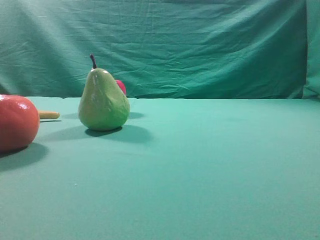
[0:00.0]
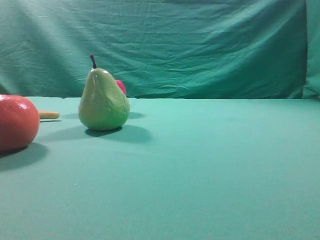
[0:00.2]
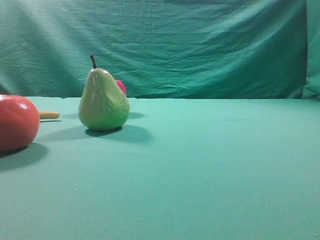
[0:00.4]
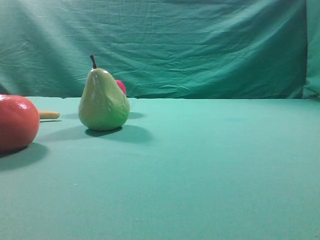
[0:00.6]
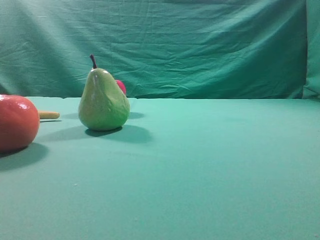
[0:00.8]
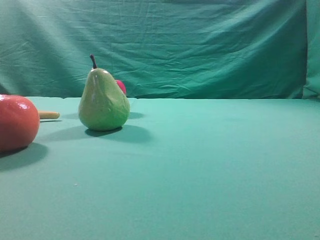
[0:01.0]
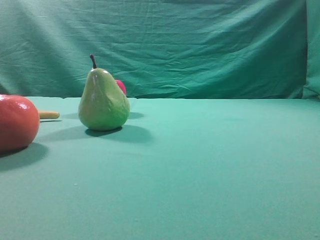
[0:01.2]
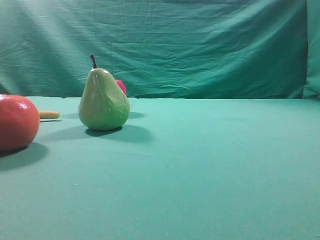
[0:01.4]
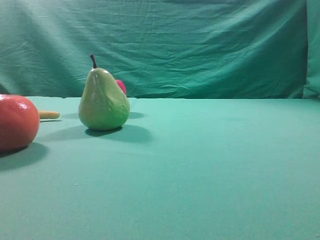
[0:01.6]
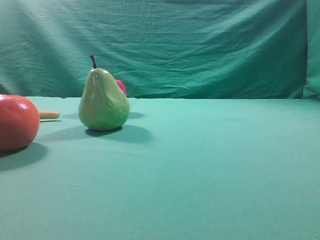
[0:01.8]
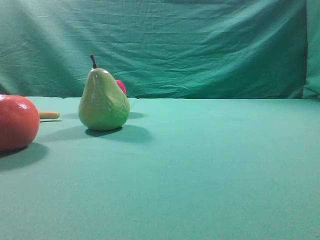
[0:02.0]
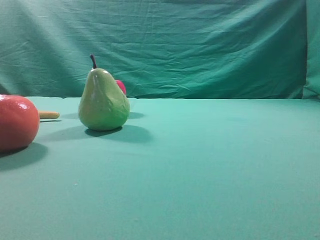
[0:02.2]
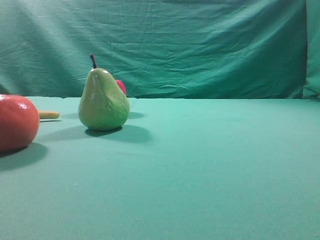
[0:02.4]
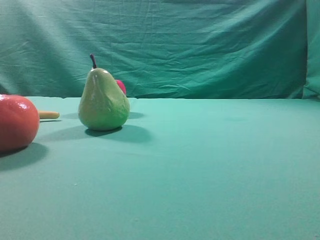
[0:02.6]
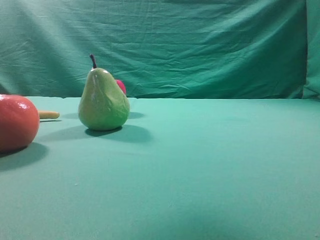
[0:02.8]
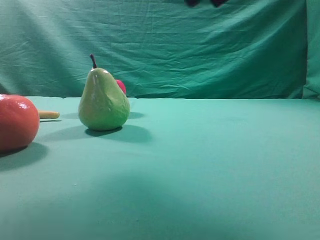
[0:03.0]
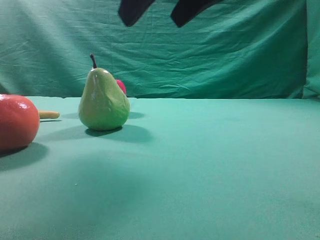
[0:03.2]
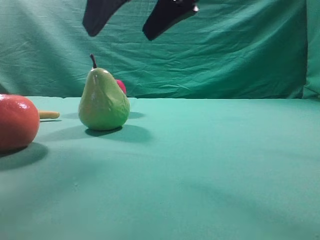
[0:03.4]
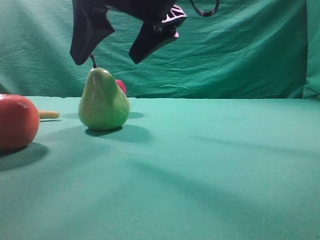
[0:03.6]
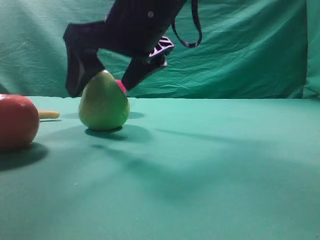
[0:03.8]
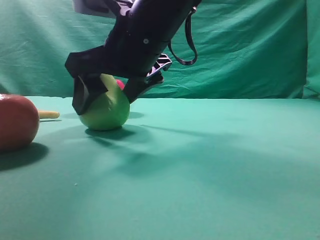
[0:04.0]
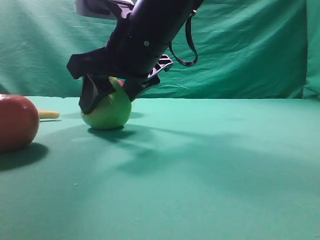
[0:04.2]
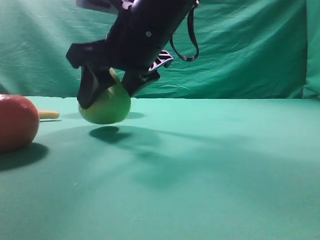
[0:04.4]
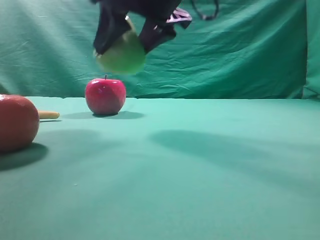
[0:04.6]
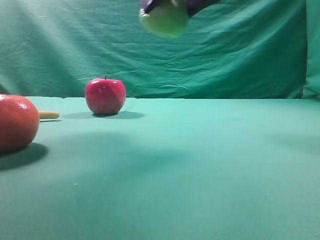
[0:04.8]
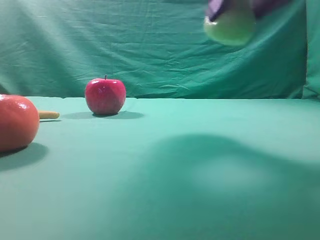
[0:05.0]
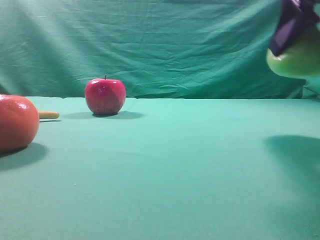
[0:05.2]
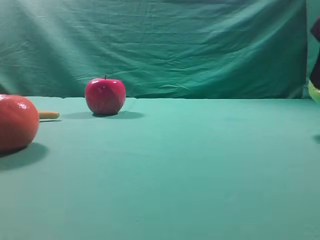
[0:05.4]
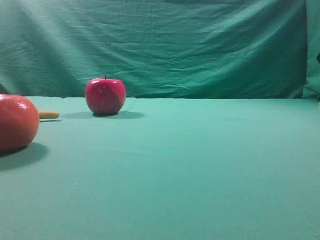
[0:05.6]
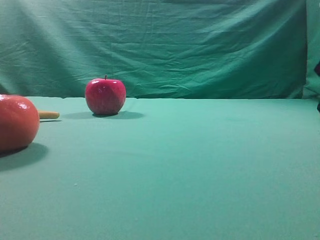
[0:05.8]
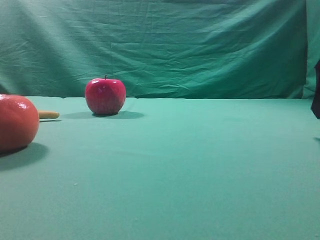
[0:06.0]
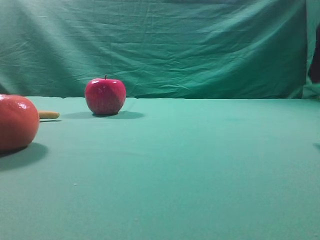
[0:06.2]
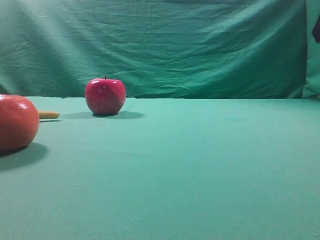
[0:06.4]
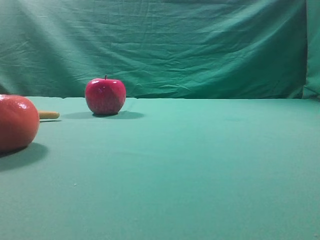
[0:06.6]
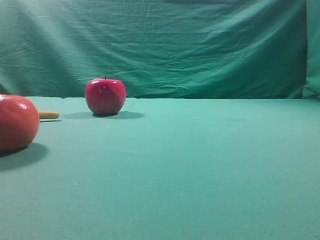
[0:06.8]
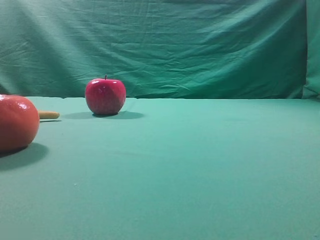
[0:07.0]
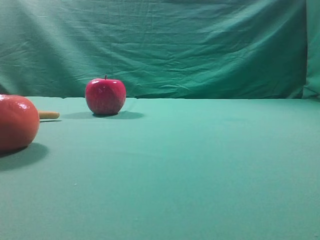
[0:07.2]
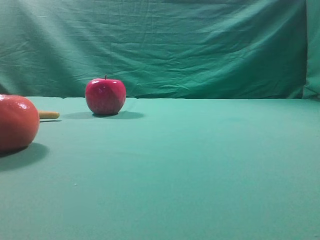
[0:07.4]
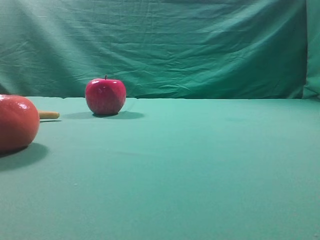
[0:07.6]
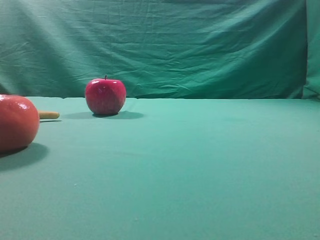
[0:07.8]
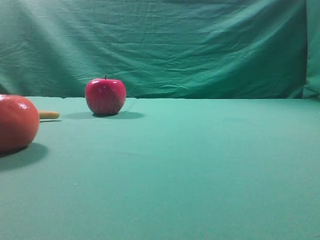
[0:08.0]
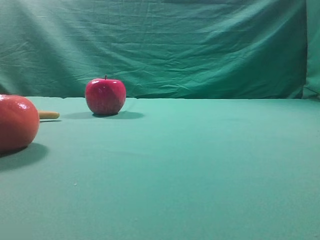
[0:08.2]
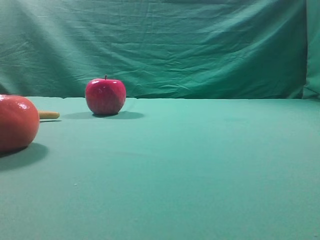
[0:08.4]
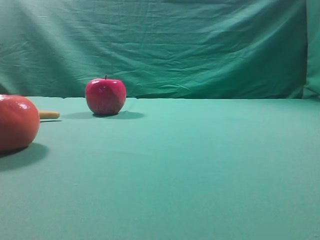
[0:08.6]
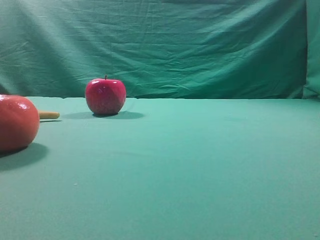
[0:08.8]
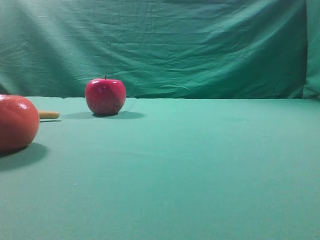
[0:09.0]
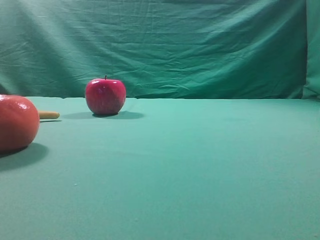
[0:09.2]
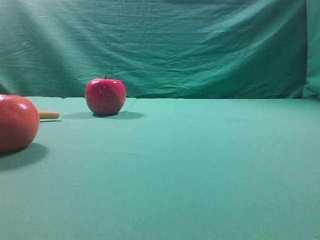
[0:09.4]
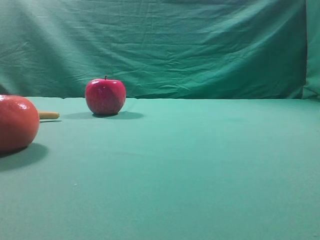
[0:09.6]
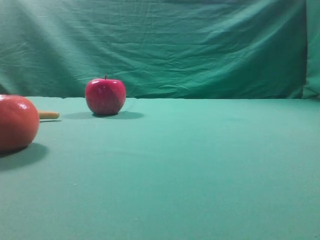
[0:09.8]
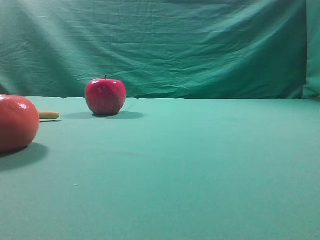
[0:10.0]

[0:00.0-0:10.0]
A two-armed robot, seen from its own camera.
Task of the whole recording: Grasp the pear and place it on one side of the table.
Step, 0:00.0 to 0:04.4: Grasp the high-fiber fruit.
Step, 0:04.6 to 0:05.6: Place it on the right side of the table.

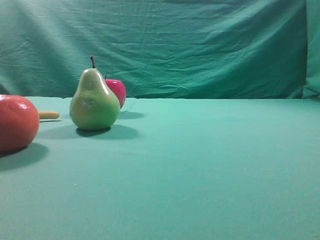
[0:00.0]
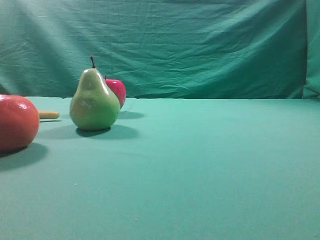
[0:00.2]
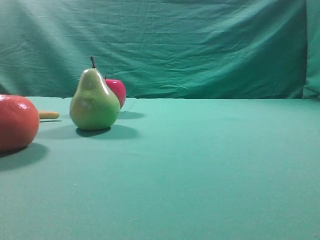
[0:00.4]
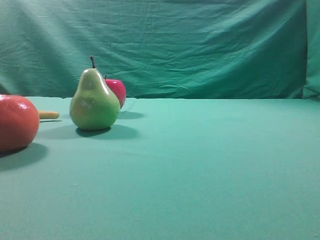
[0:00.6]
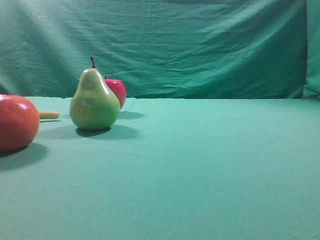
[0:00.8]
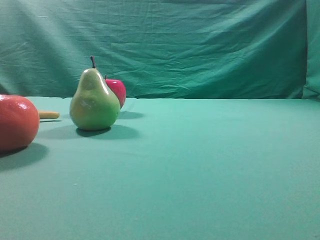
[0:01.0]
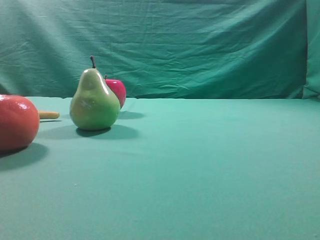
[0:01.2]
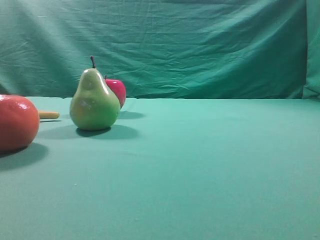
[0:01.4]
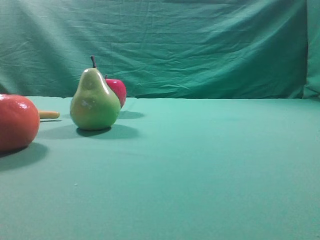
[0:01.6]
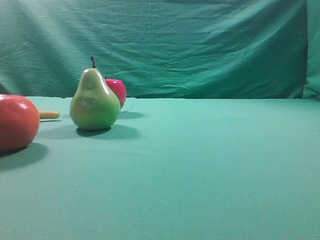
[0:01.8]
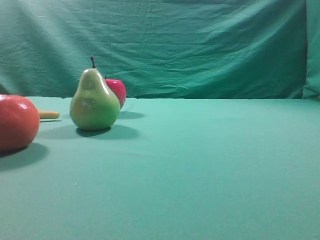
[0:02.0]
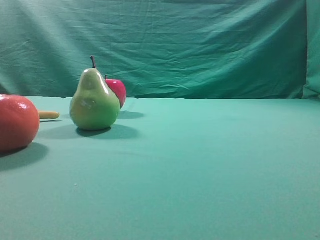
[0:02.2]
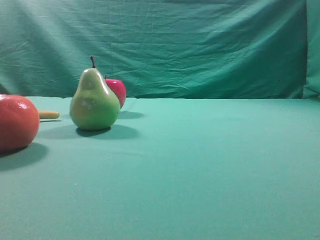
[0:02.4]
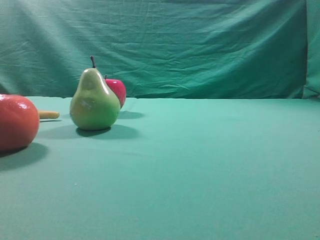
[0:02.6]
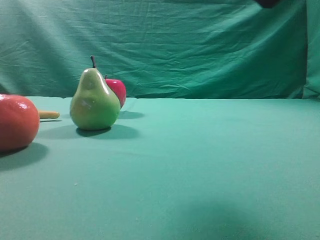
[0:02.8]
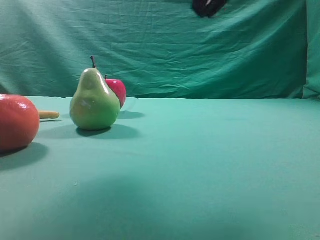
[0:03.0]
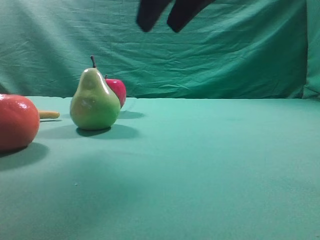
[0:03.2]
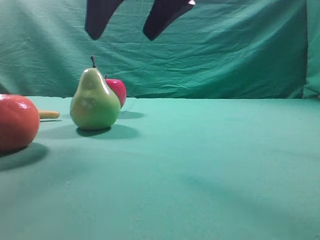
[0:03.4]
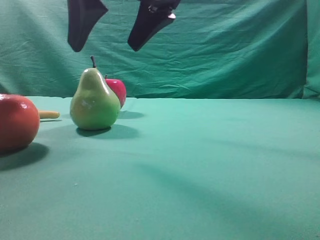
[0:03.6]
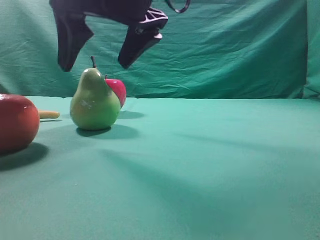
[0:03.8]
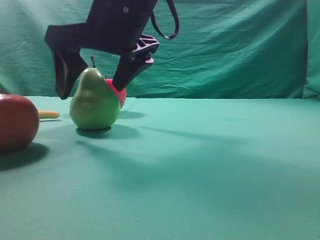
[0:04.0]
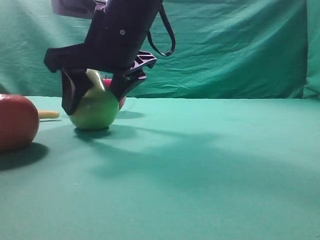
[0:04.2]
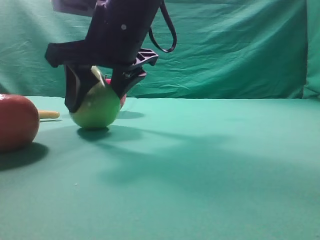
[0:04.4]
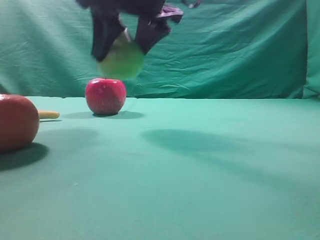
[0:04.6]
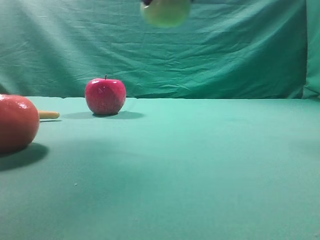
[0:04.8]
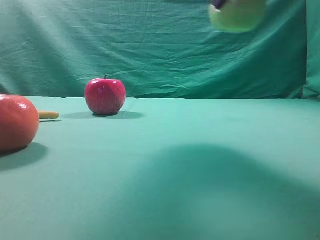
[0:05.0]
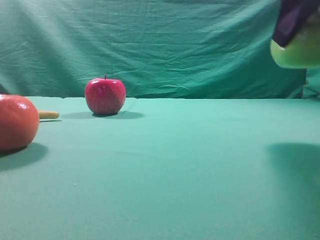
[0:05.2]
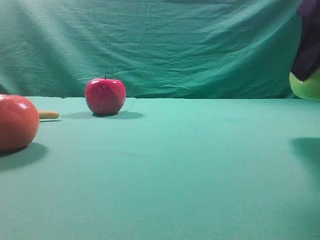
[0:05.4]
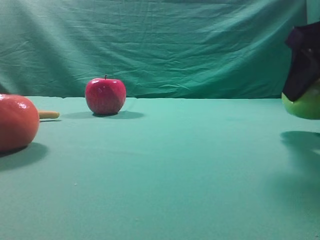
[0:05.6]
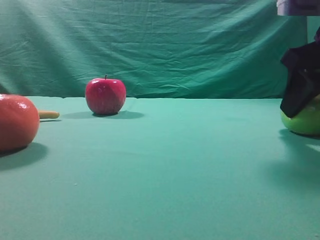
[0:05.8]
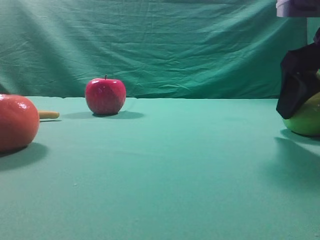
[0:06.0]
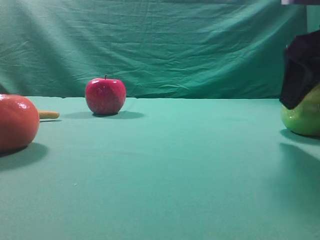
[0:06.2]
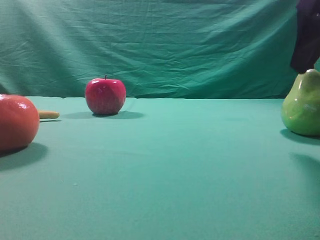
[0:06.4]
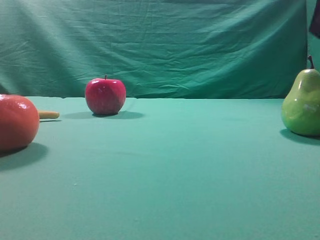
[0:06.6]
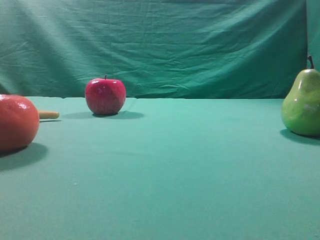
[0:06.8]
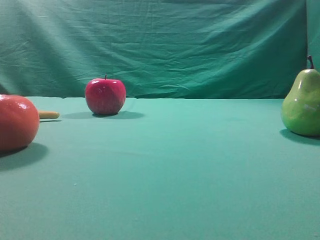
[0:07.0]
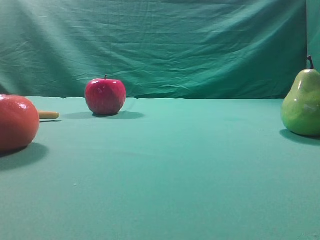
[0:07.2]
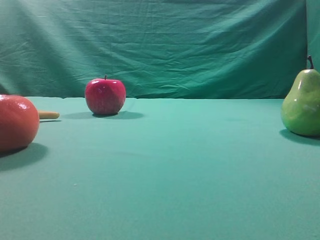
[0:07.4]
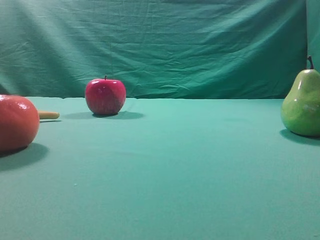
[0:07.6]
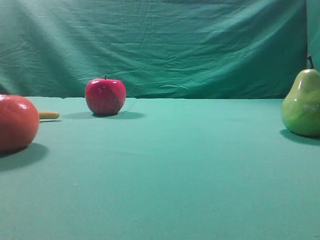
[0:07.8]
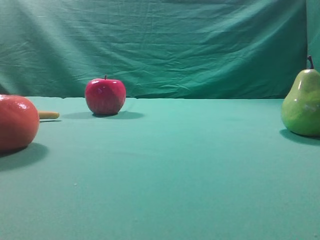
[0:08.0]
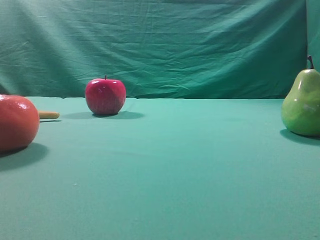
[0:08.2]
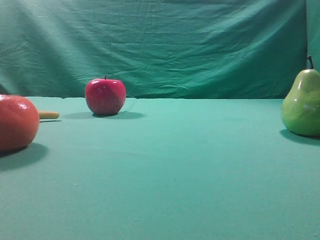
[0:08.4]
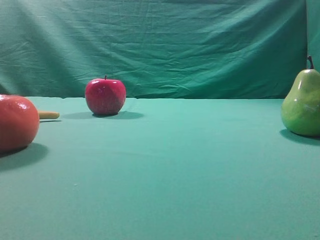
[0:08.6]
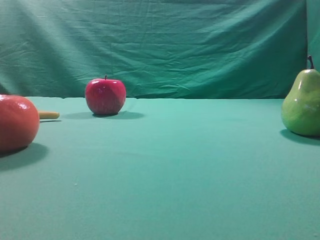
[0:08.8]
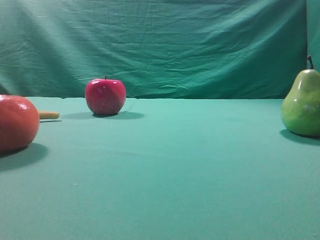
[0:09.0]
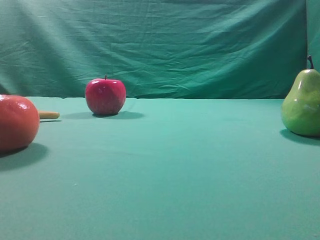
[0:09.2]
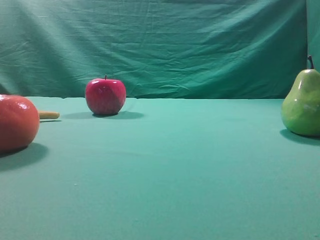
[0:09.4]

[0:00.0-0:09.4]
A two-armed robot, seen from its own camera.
Task of the whole recording: Grasp the pear and place it on one side of the table.
Step, 0:00.0 to 0:04.4: Grasp the high-fiber fruit.
Step, 0:04.6 to 0:06.2: Place it on the right side of the table.

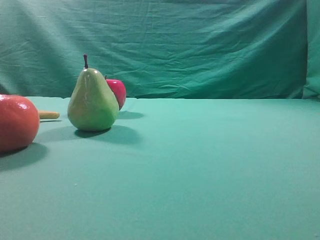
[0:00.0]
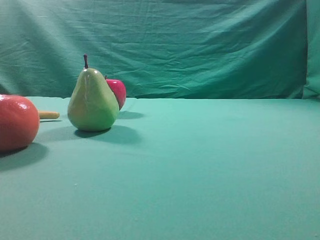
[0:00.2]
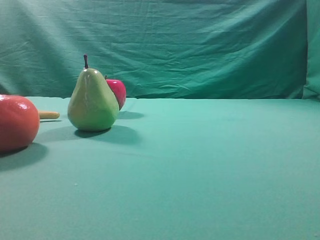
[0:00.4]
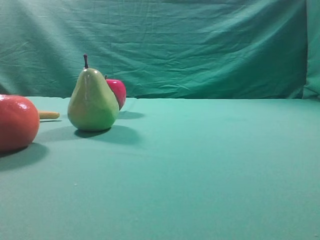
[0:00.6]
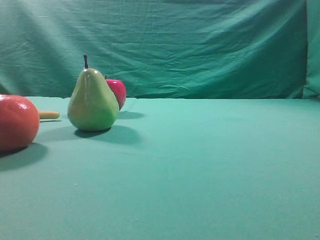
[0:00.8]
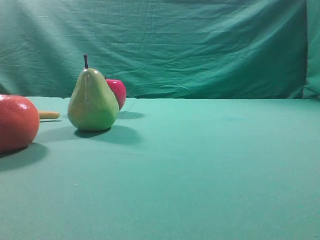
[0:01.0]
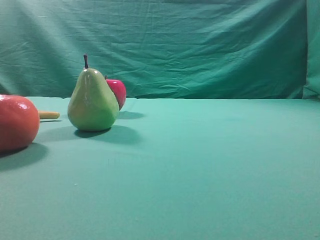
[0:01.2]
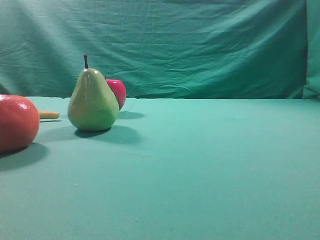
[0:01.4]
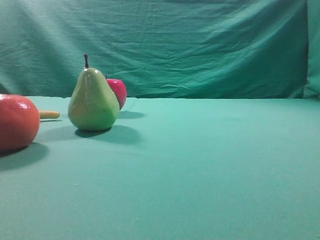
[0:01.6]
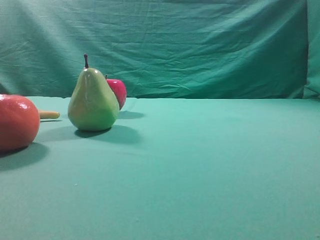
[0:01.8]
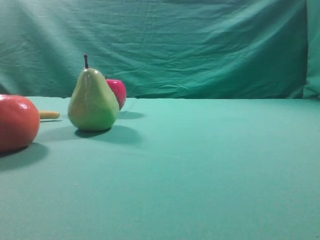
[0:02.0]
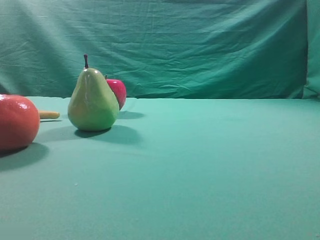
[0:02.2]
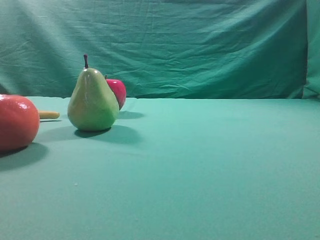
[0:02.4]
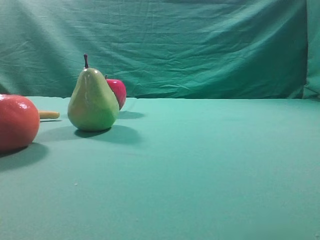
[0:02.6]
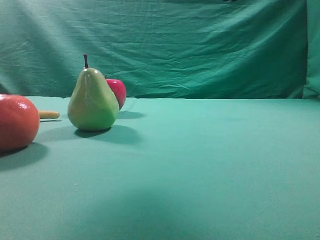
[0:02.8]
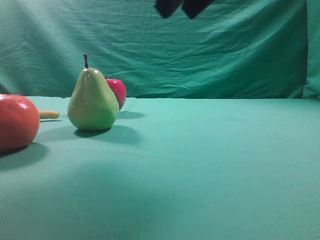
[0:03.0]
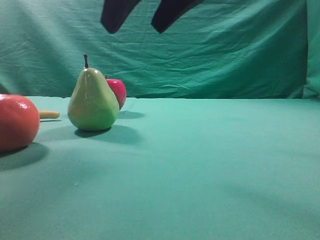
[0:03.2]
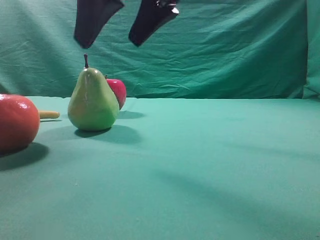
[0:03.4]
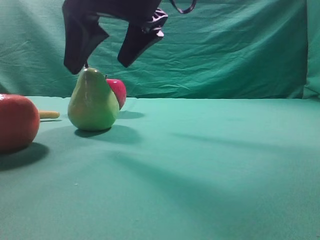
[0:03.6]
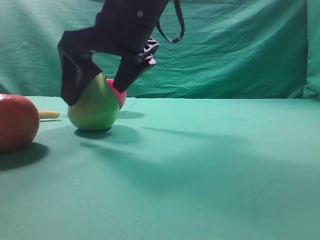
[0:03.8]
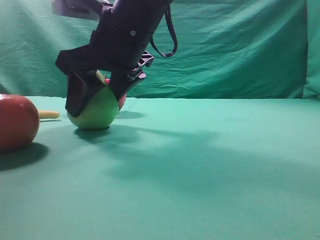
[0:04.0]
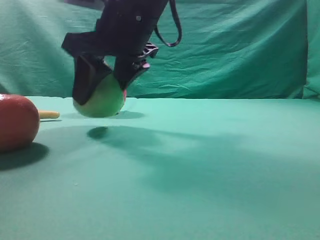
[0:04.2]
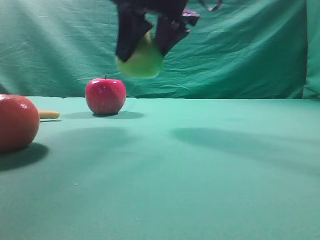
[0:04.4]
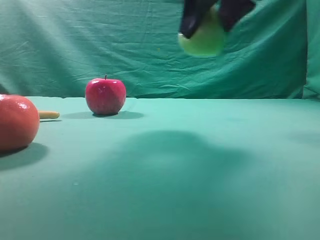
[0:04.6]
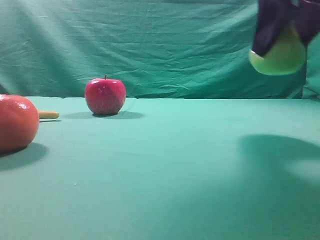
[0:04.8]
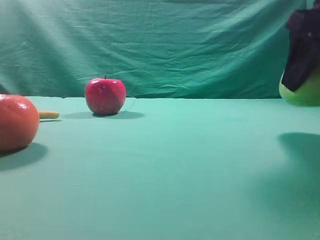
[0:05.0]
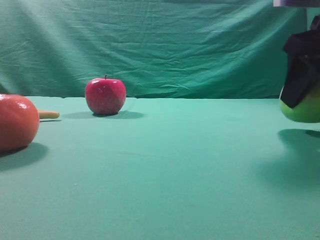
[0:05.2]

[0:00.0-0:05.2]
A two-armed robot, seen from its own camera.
Task of the whole recording: Grasp the pear and place it on one side of the table.
Step, 0:00.0 to 0:04.2: Grasp the high-fiber fruit.
